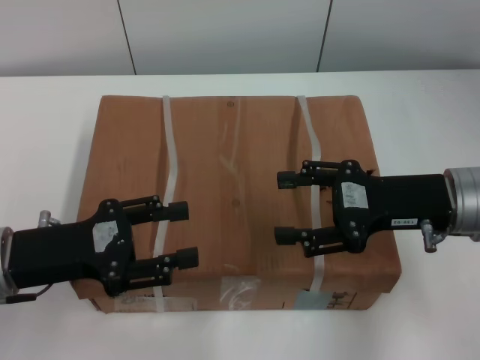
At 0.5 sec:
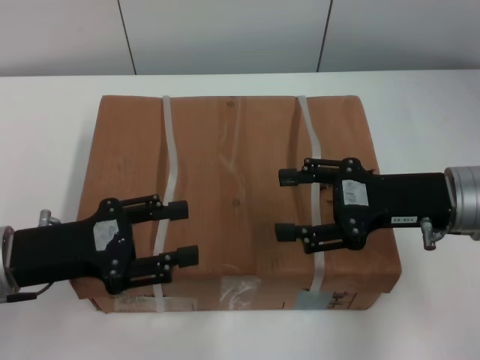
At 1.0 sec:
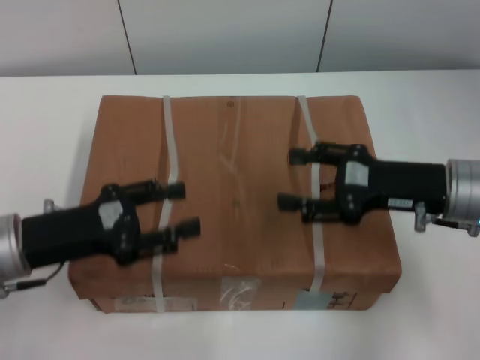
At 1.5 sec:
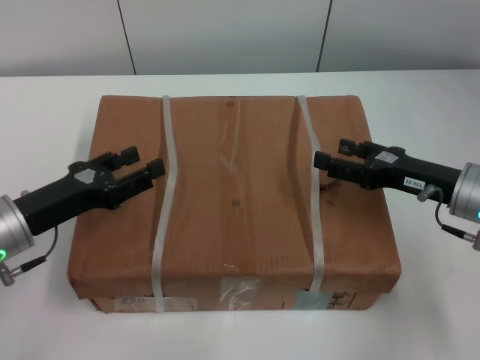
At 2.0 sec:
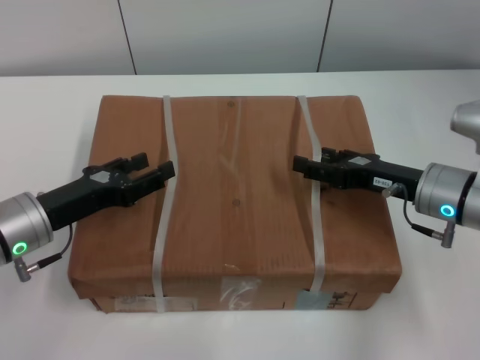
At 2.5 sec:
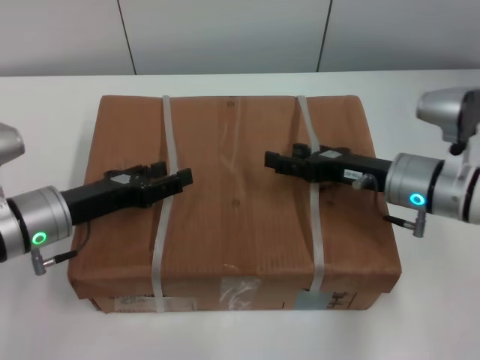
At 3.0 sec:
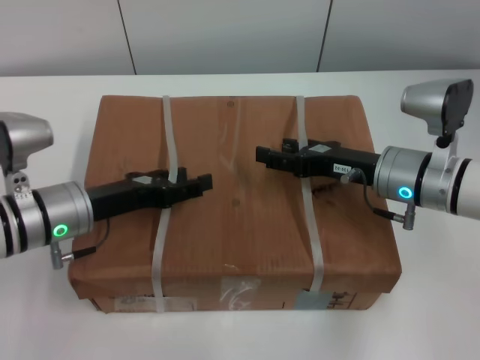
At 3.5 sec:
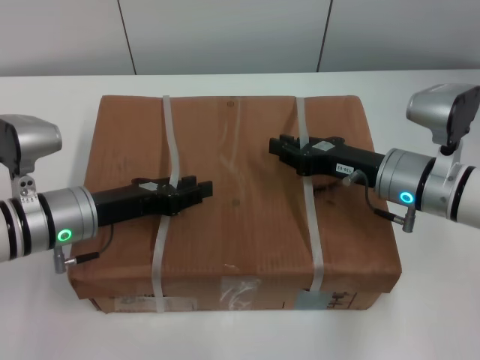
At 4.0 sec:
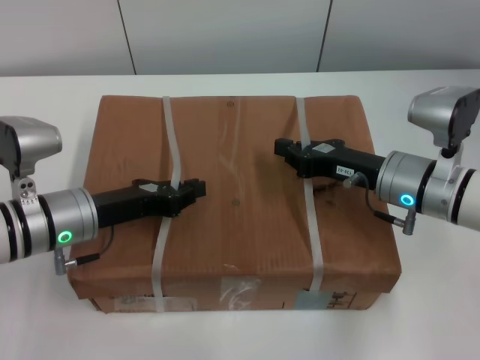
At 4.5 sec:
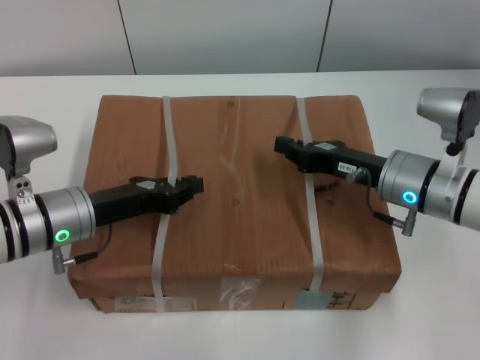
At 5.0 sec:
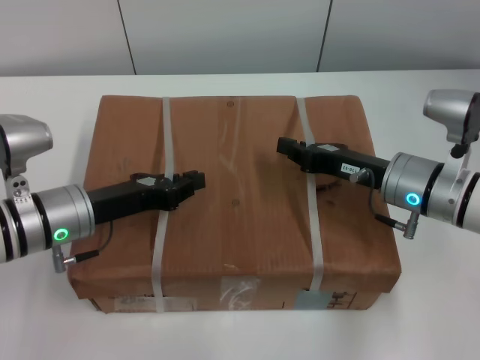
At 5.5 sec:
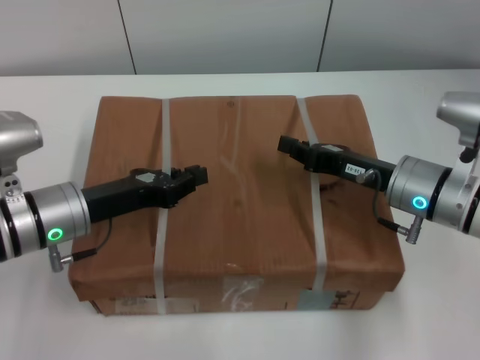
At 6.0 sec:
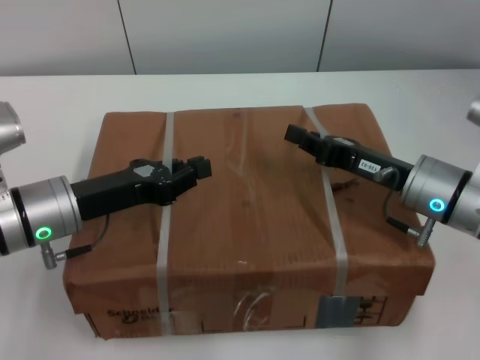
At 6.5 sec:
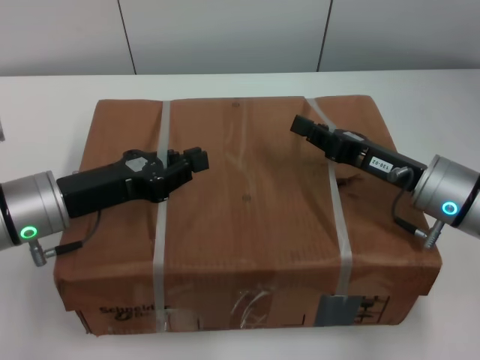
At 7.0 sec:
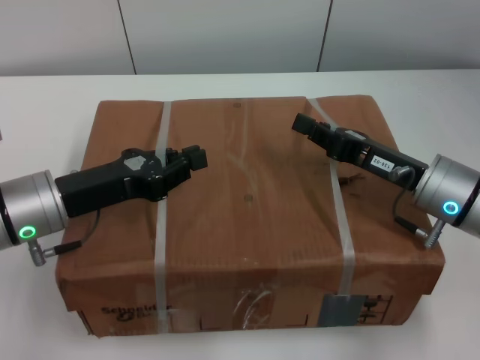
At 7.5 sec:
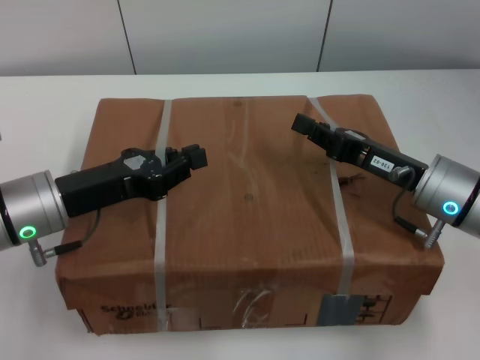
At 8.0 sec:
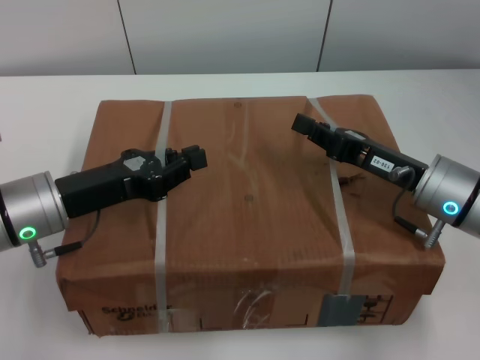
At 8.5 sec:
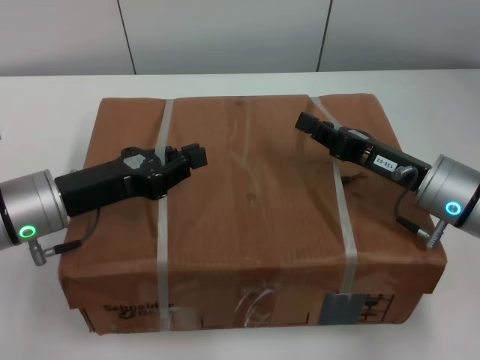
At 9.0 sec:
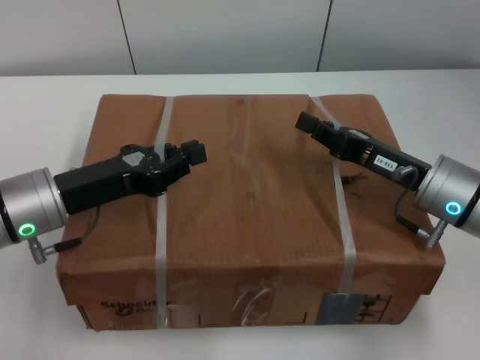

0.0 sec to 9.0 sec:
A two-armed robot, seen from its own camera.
Task of the whole recording: pick up the box from the table with both arms.
Step, 0.0 sec to 3.5 sec: Grasp the bandage with left gripper.
Step, 0.0 sec to 3.5 sec: Grasp the bandage with right gripper.
Step, 4.0 sec to 6.5 sec: Lift the box with left gripper.
Step, 4.0 sec to 6.5 sec: Lift the box with right gripper.
0.0 sec to 2.0 sec: The right gripper heads downward, covering roughly 5 cm. Meanwhile the left gripper changes place by about 5 cm.
2.0 sec to 4.5 sec: The left gripper closes its fingers; the right gripper closes its fingers.
7.0 sec to 9.0 sec: Both grippers stay put.
